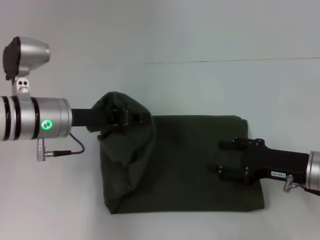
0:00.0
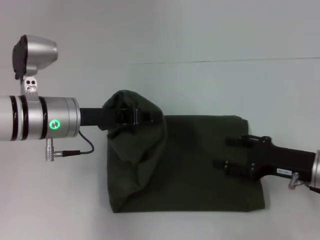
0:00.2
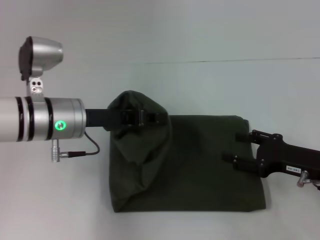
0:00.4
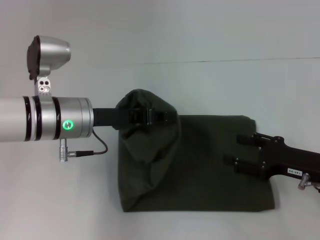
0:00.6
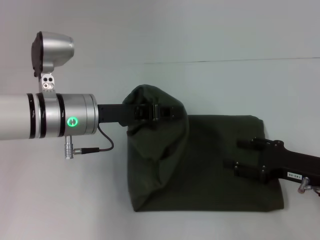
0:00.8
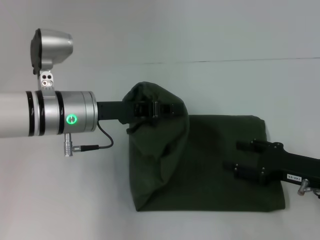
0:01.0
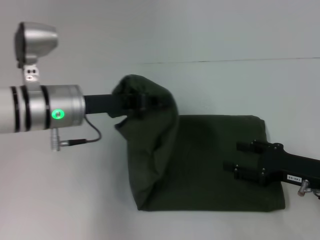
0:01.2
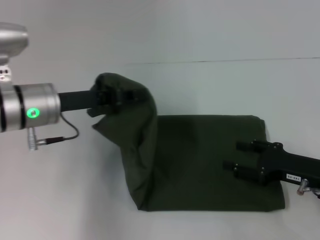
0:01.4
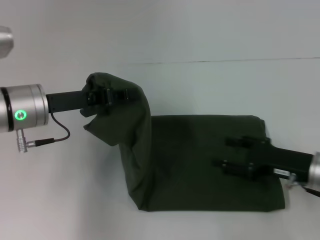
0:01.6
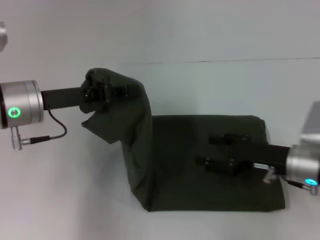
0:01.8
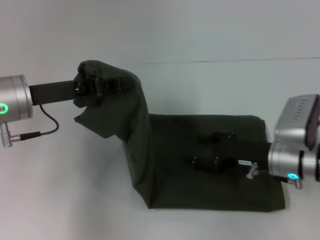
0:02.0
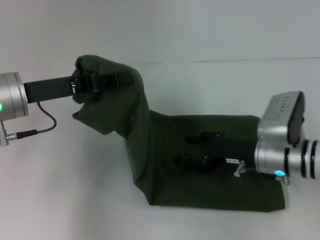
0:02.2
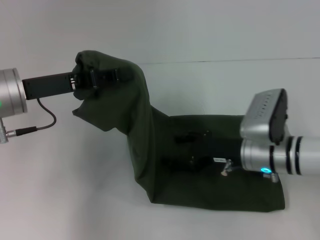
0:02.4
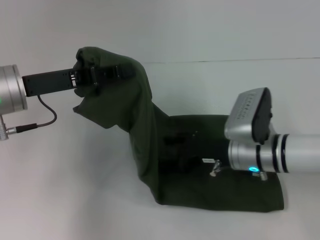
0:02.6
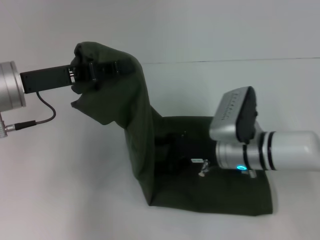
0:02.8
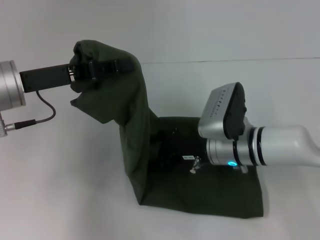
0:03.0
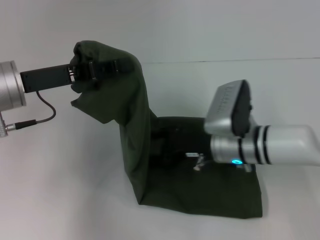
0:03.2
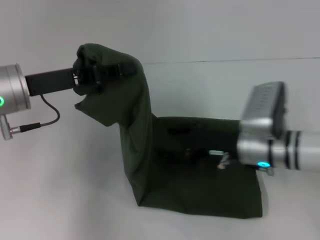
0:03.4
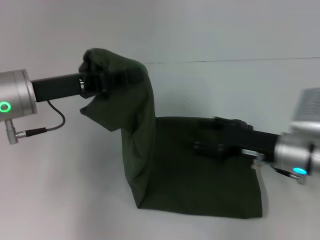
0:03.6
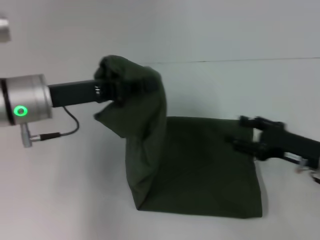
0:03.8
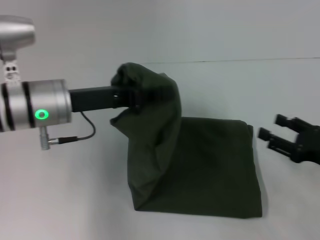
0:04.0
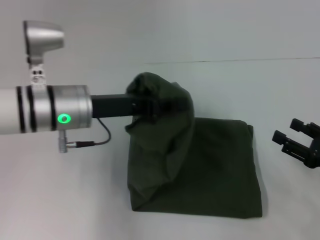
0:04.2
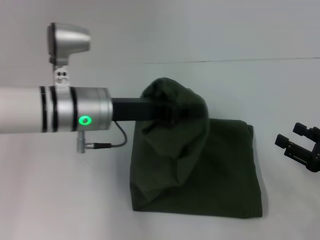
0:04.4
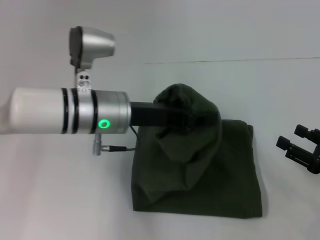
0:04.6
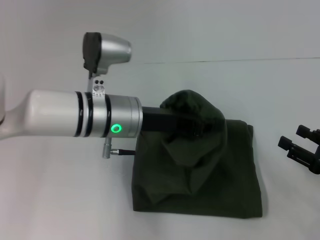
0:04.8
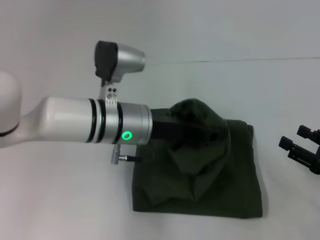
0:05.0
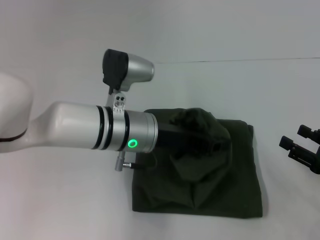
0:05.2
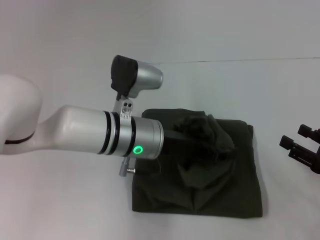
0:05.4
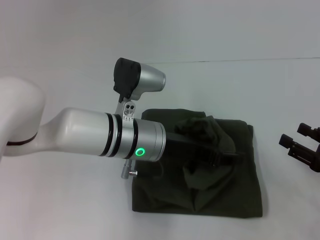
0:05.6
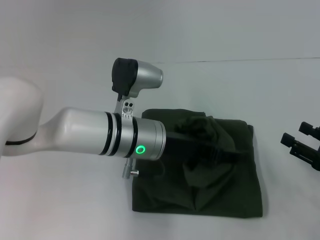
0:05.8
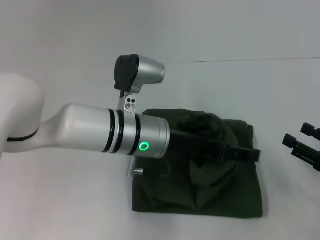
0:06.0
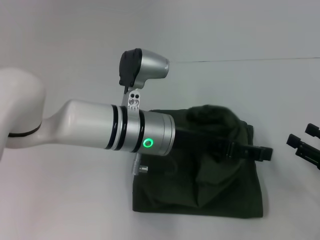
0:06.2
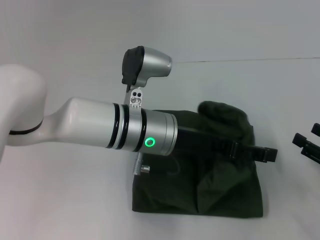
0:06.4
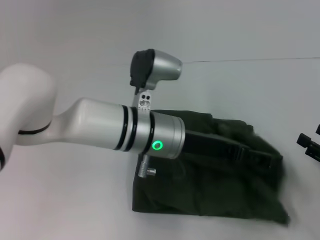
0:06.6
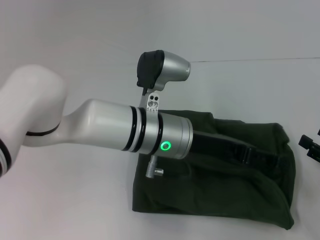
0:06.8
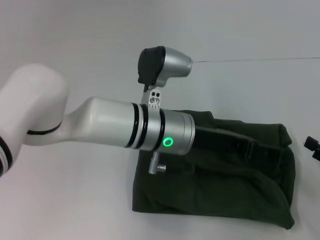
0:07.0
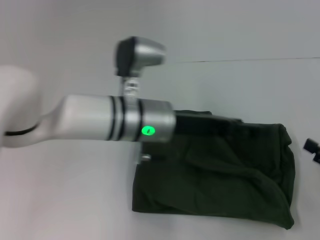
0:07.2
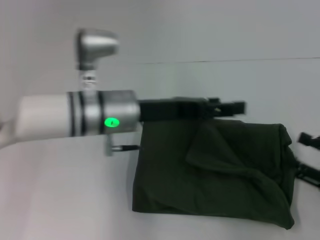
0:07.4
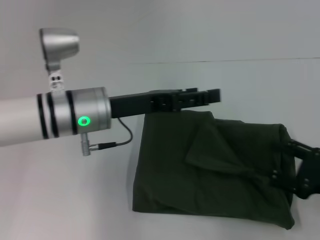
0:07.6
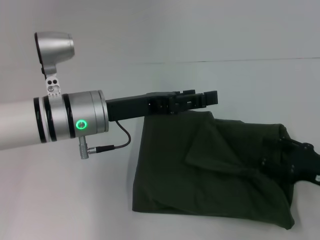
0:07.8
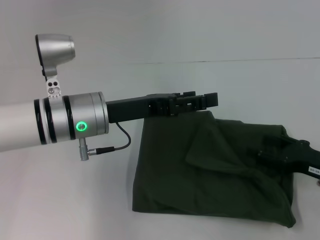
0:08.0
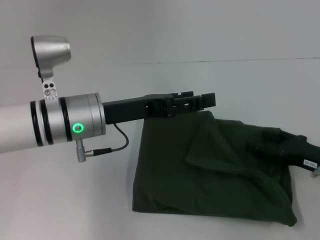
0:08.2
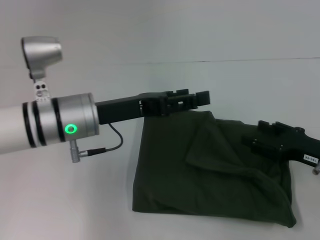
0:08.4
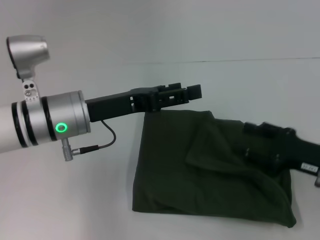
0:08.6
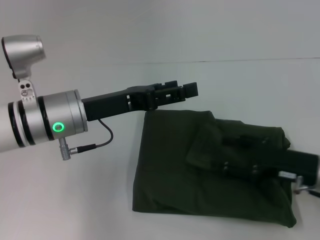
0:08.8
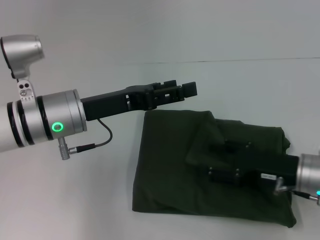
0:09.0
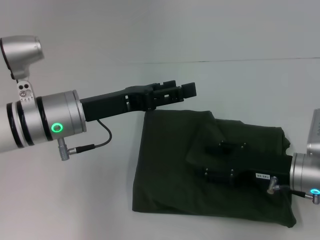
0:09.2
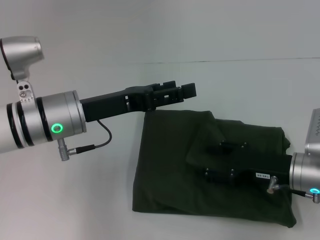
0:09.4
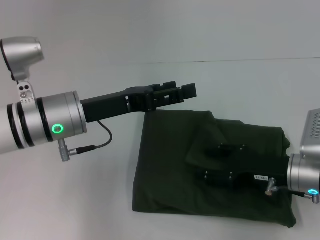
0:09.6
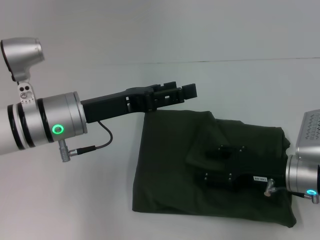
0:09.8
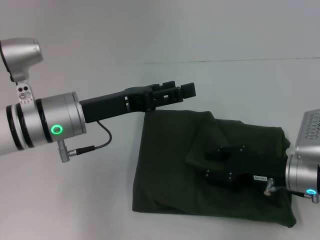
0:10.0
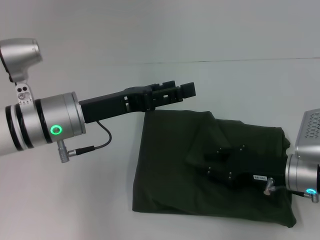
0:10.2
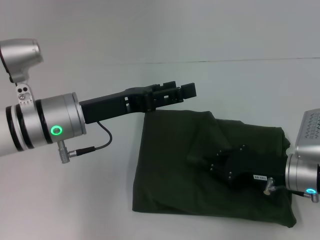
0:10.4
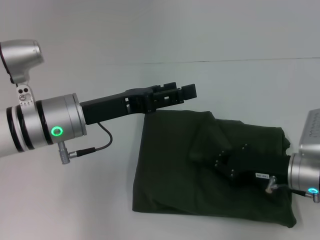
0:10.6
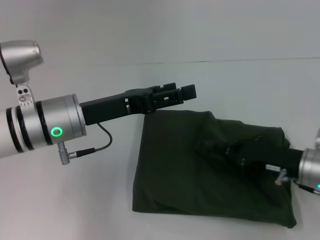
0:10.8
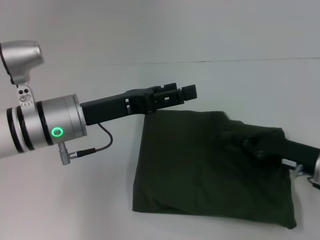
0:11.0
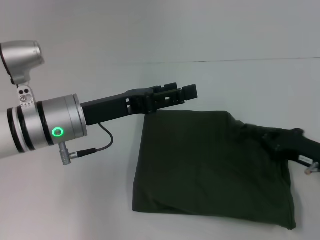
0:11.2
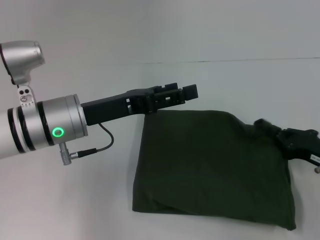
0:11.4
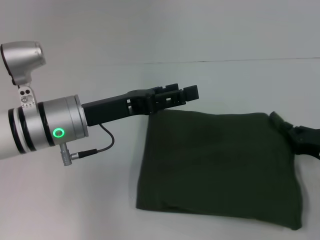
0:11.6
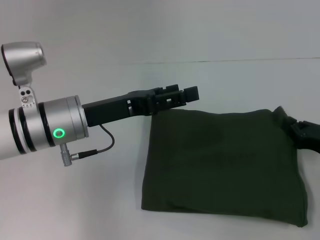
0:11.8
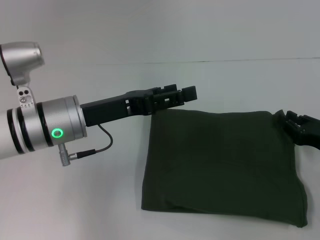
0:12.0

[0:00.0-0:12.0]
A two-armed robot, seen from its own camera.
Step, 0:00.0 to 0:07.2: Fold the clothes with your left hand.
0:00.0 to 0:01.6: There are only small adjustments of the grippers.
0:01.6 to 0:03.0: The right gripper travels to the left and forward by about 15 cm.
0:03.0 to 0:04.4: The right gripper travels to the right and backward by about 25 cm, while the left gripper shifts some 10 cm to the right.
0:04.4 to 0:06.0: The left gripper is displaced to the right by roughly 5 cm, and opens up.
0:06.0 to 0:07.6: The left gripper is displaced to the left by some 10 cm.
0:07.6 to 0:09.0: The right gripper travels to the left and forward by roughly 10 cm.
0:09.0 to 0:10.4: The right gripper closes up.
0:10.4 to 0:12.0: The right gripper shifts some 10 cm to the right.

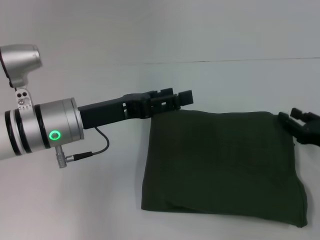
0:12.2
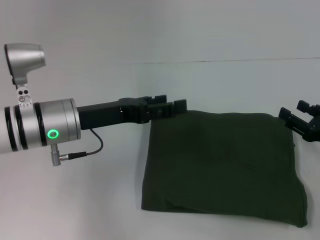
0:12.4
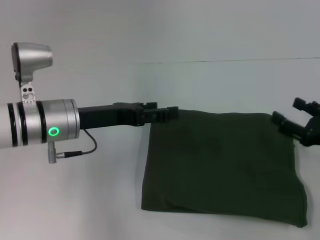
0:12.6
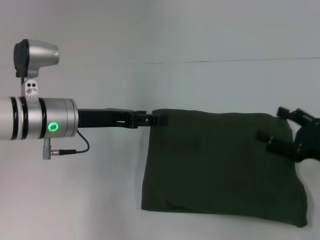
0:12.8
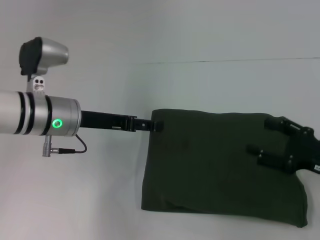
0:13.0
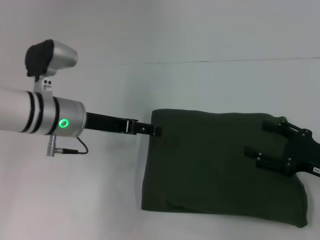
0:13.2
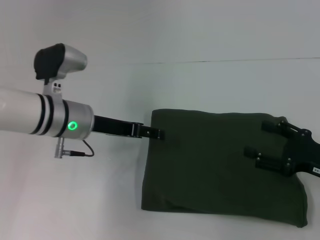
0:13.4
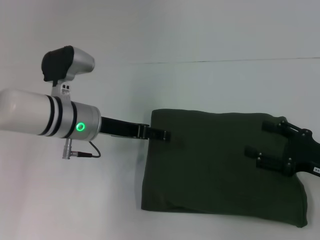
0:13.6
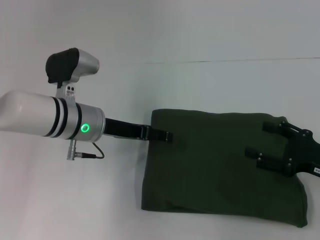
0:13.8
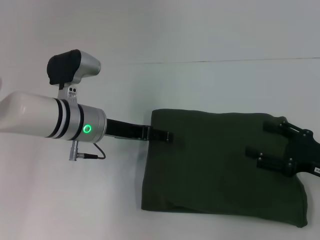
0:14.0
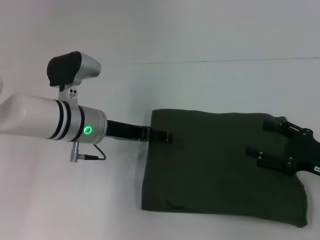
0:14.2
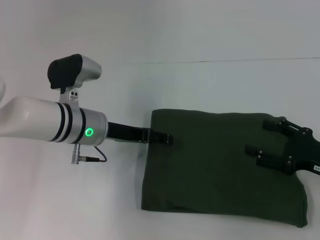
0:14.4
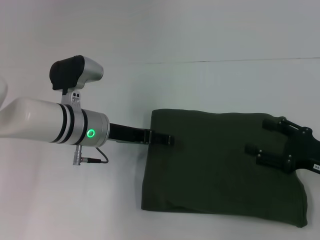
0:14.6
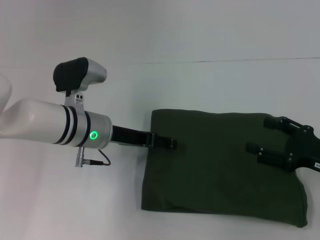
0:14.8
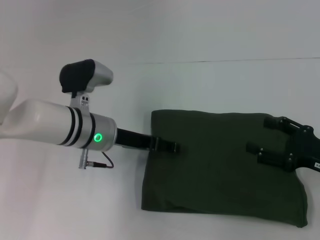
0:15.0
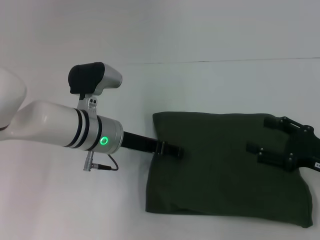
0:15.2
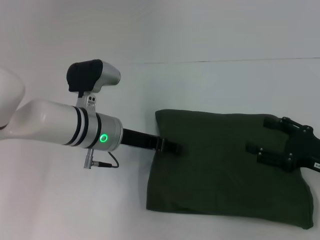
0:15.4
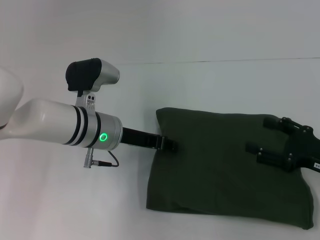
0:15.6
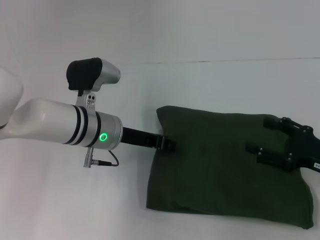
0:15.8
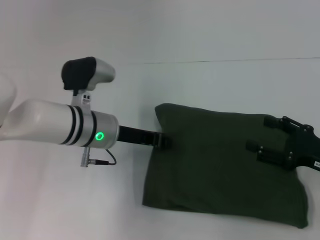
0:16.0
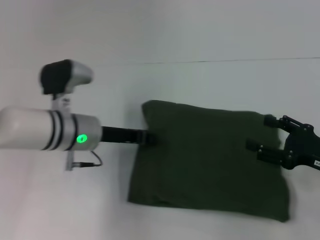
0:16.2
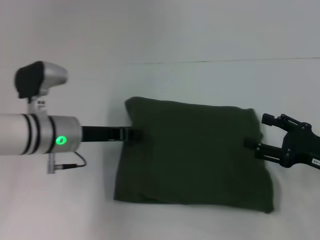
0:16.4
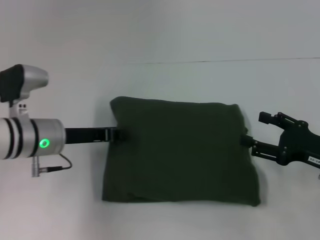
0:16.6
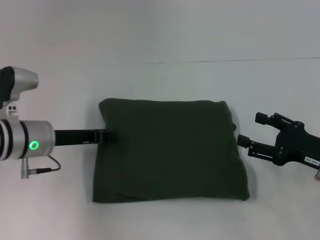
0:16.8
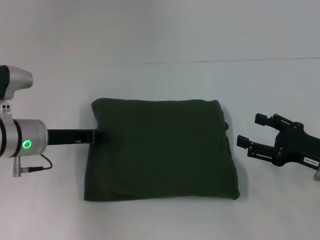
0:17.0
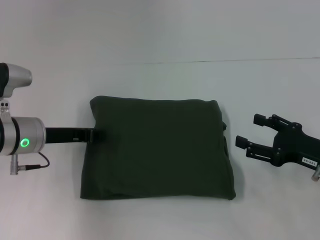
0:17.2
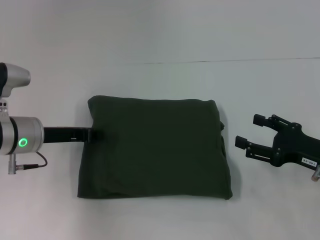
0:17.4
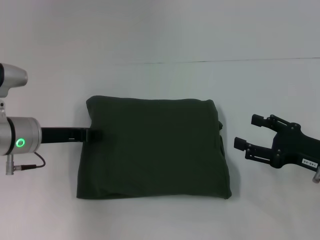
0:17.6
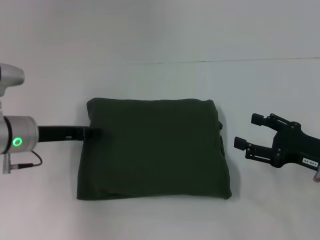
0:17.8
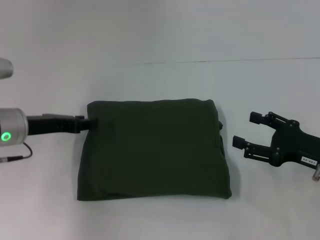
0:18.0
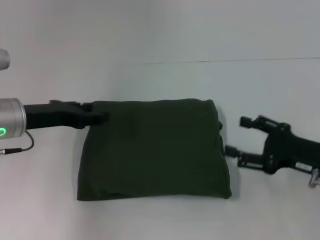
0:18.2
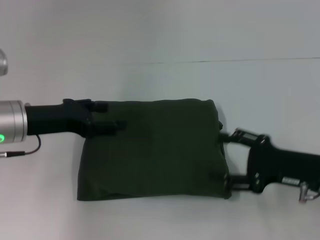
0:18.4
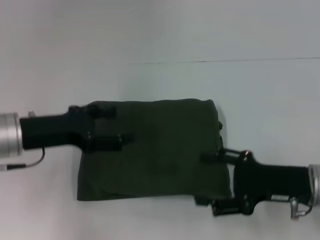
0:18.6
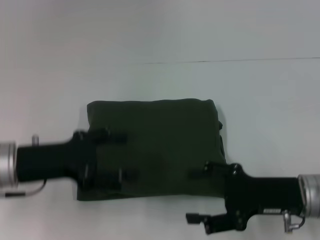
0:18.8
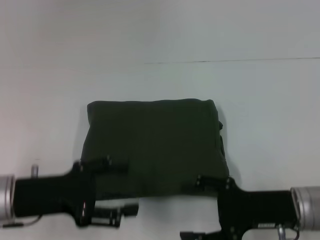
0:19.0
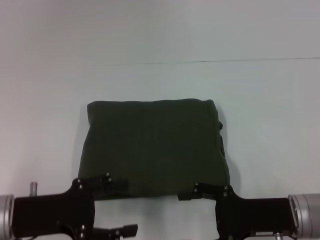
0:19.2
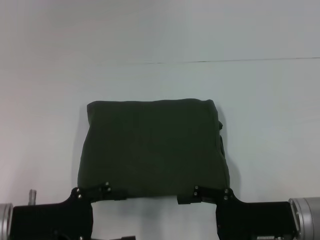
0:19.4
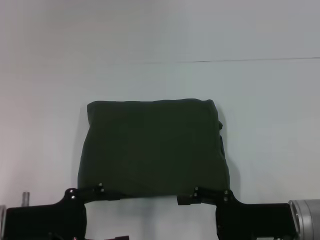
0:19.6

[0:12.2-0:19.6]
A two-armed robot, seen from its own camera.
0:12.2 to 0:13.6: The right gripper opens, while the left gripper changes place by roughly 5 cm.
0:13.6 to 0:15.2: The grippers stay close to where they were, moving slightly.
0:15.2 to 0:16.6: The left gripper moves to the left, some 10 cm, and closes up.
0:16.6 to 0:18.2: The left gripper moves some 5 cm.
0:18.2 to 0:19.6: The right gripper moves to the left, approximately 5 cm. The left gripper travels backward and downward by approximately 15 cm, and opens its fingers.

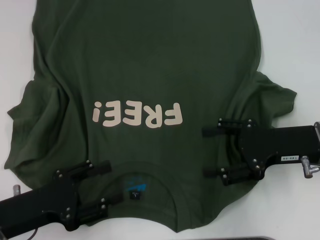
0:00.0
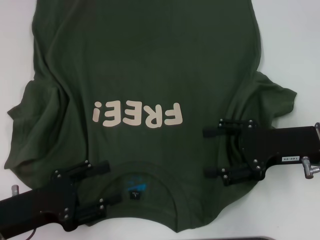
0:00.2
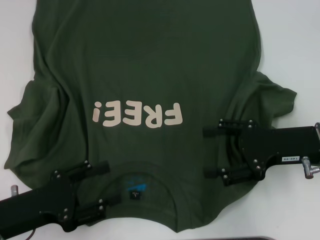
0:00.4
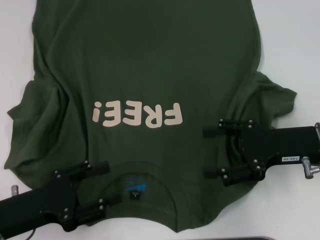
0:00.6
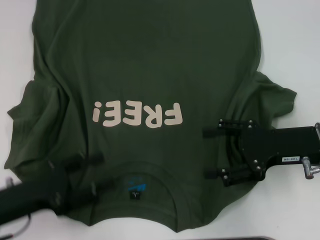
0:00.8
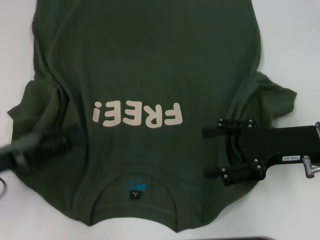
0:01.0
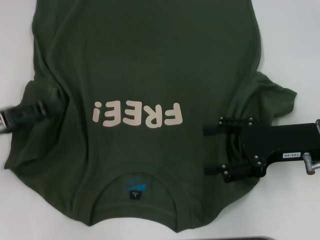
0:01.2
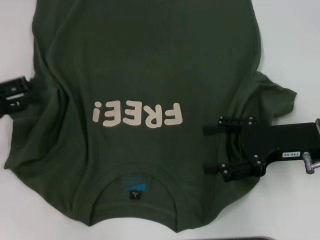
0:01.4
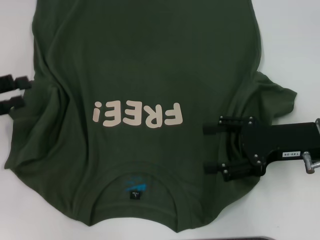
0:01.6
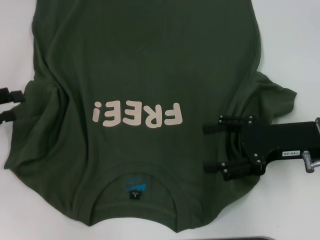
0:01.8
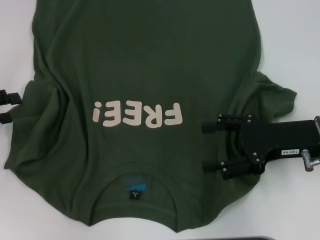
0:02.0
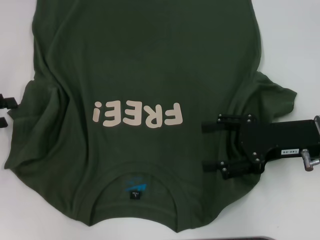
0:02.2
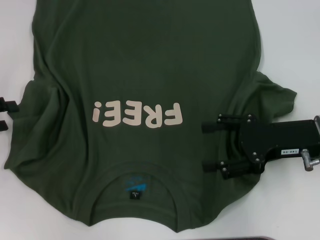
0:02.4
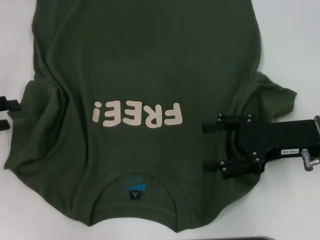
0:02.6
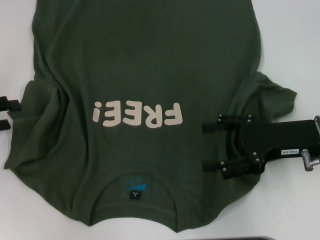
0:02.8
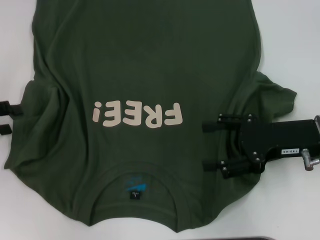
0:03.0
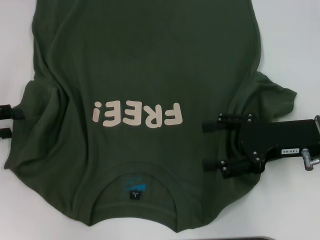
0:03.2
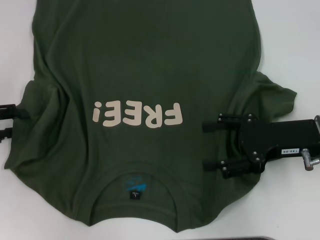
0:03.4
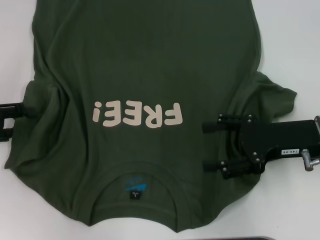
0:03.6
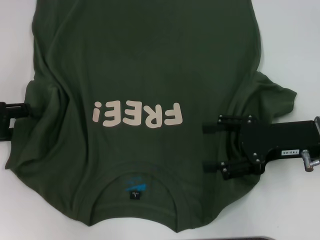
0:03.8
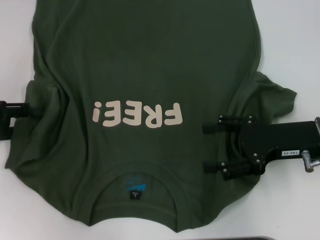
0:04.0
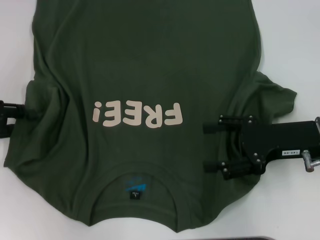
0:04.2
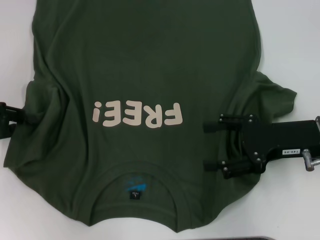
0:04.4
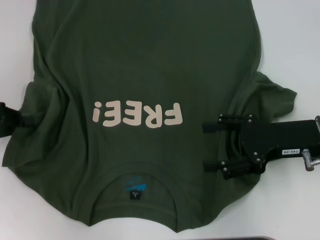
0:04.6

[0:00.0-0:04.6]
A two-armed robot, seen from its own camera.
0:00.0 to 0:01.6: The left gripper shifts some 15 cm forward, to the left and upward.
0:01.6 to 0:03.0: The grippers move only a little.
0:03.0 to 0:04.6: The left gripper closes.
